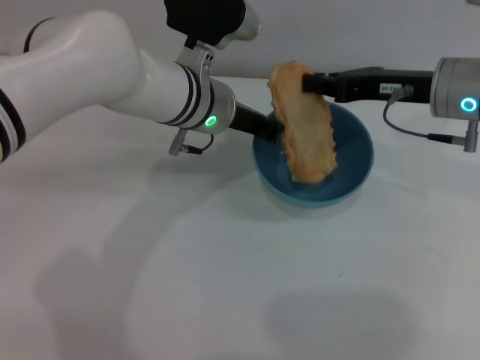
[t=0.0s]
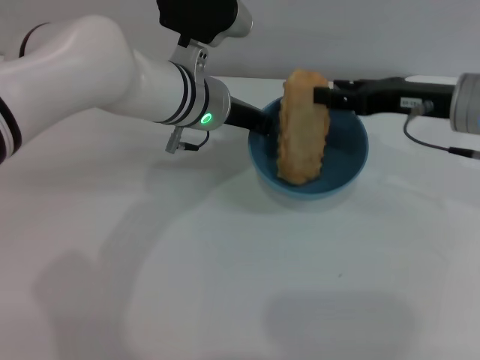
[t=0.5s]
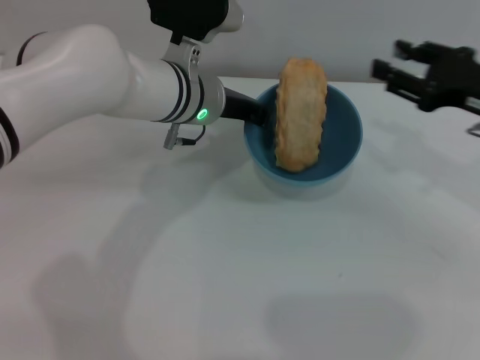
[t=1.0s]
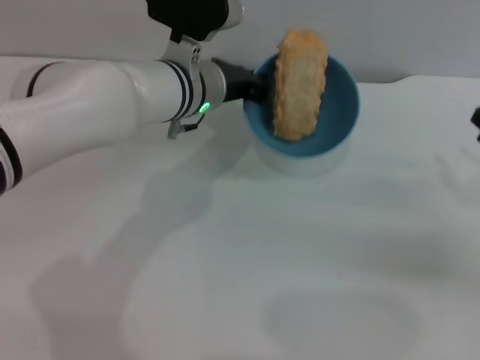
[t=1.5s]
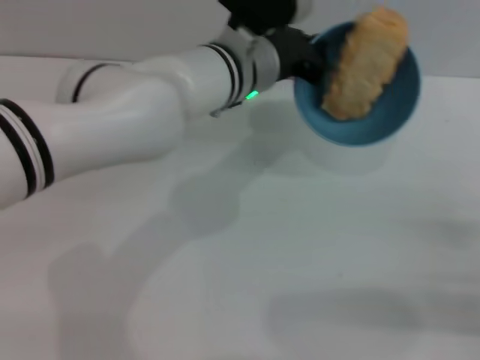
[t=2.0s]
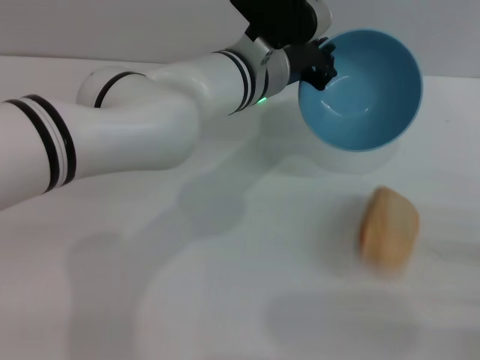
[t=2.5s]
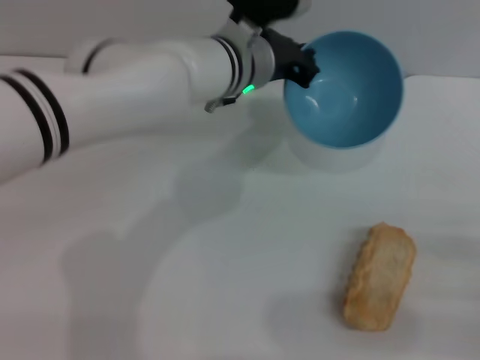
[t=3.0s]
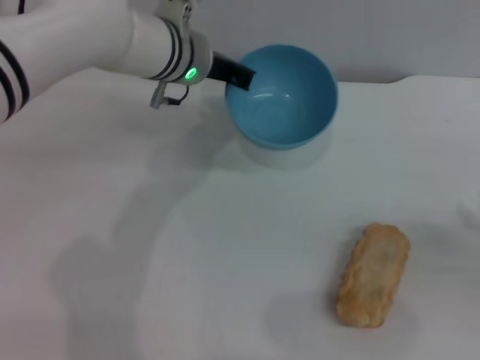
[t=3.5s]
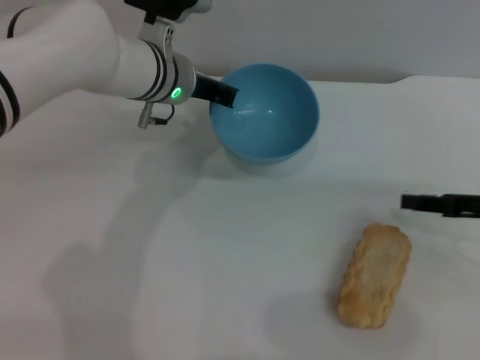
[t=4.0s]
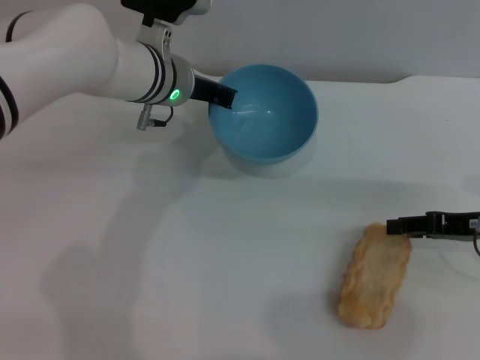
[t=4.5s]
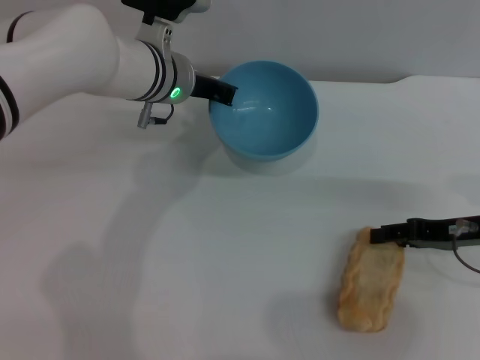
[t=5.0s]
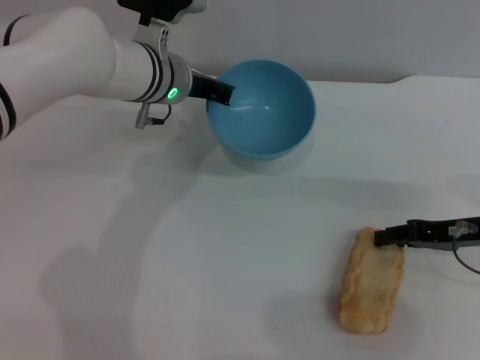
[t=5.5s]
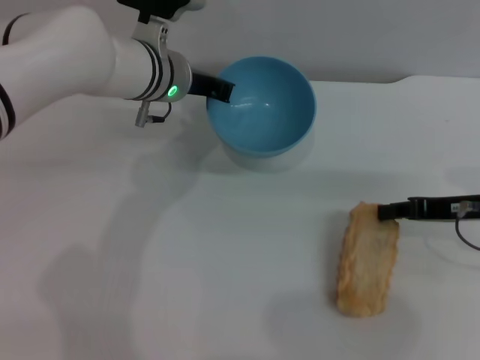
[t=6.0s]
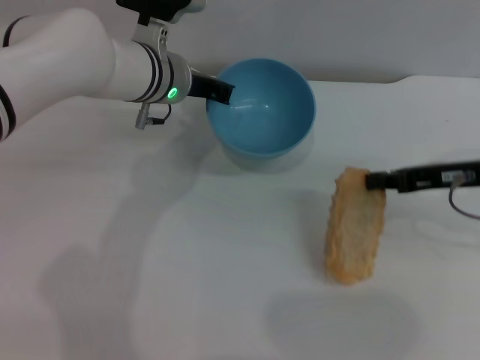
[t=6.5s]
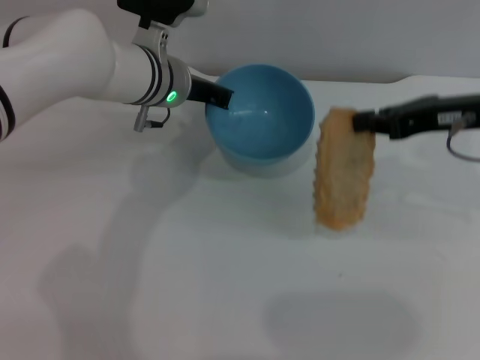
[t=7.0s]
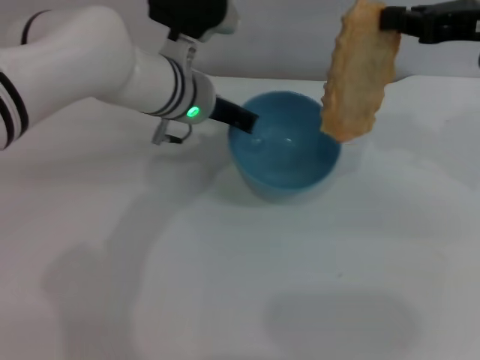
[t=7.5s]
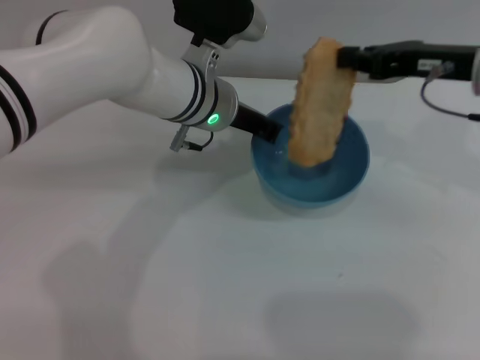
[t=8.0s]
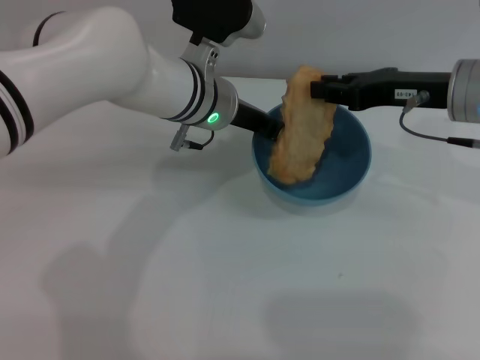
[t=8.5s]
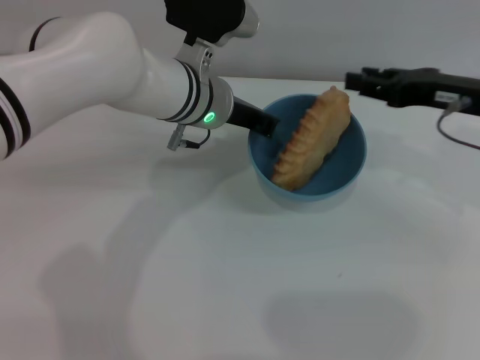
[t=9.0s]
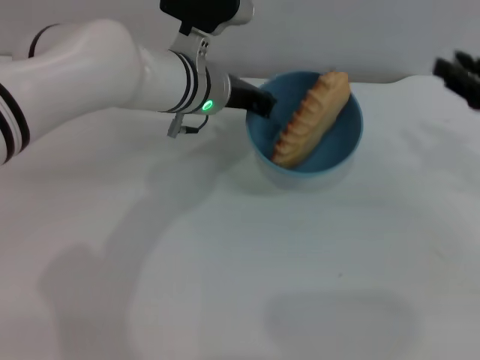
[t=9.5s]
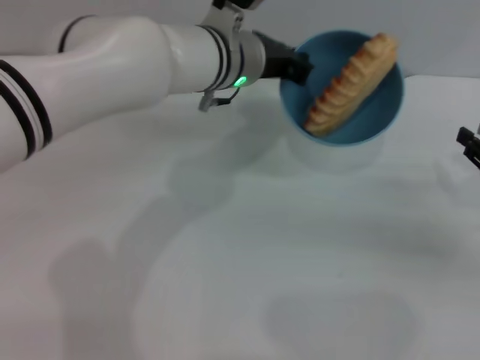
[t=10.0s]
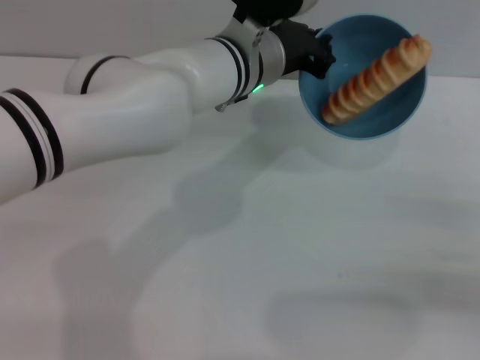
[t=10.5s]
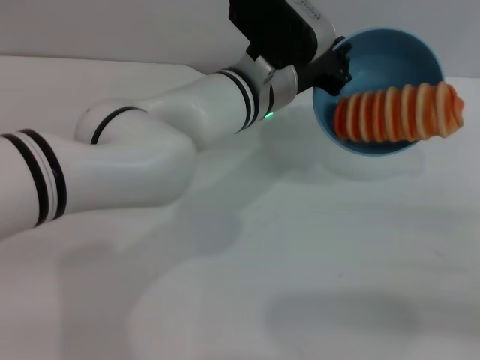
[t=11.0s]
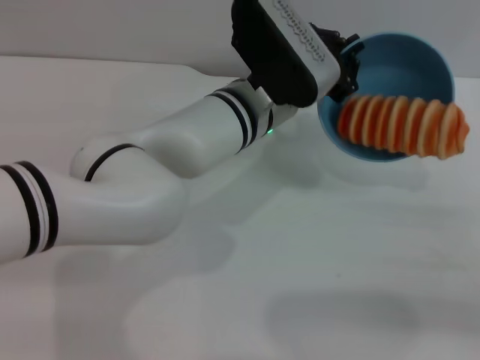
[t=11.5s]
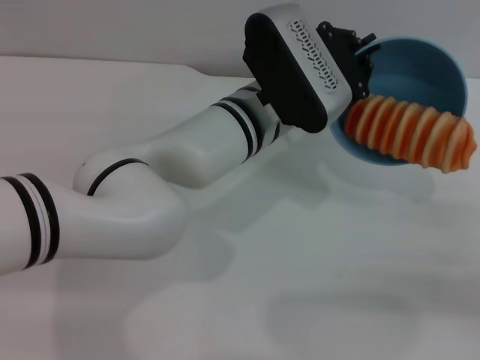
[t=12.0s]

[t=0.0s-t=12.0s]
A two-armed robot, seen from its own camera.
Task of the whole recording: put the bread into the blue bowl and pour it out repeatedly.
Step, t=1.0s to t=2.5s: Pour the bread out of the bowl.
Step, t=3.0s to t=6.5s: Pick up the bread with the right gripper.
Step, t=7.5s to t=9.0s: Place the bread into the bowl.
t=0.0s to t=2.0s: The right gripper goes about 25 cm backward, to the right and downward, and opens its fingers.
t=2.0s to t=4.0s: The right gripper moves forward and upward, approximately 10 cm. Meanwhile the left gripper goes about 10 cm to the left.
t=4.0s to t=6.0s: The right gripper closes.
t=6.0s to t=8.0s: The left gripper shifts by some 5 cm. The right gripper goes about 15 cm upward, forward and to the left.
t=8.0s to t=10.0s: The right gripper is displaced downward, to the right and backward by approximately 20 cm, and opens.
t=10.0s to t=12.0s: Both grippers travel together backward, roughly 5 cm.

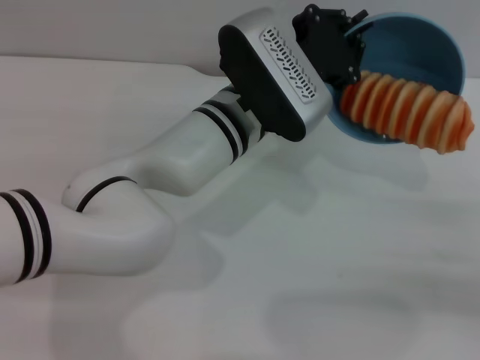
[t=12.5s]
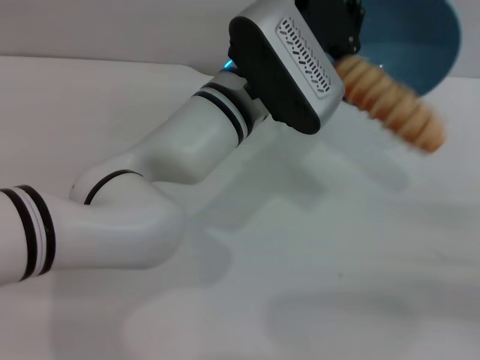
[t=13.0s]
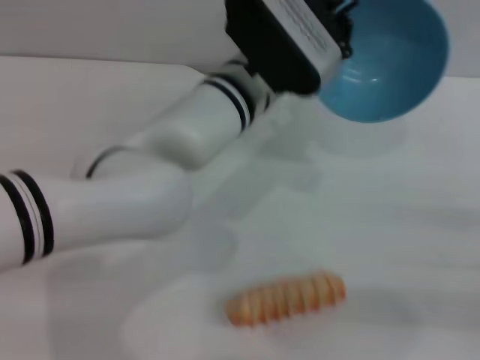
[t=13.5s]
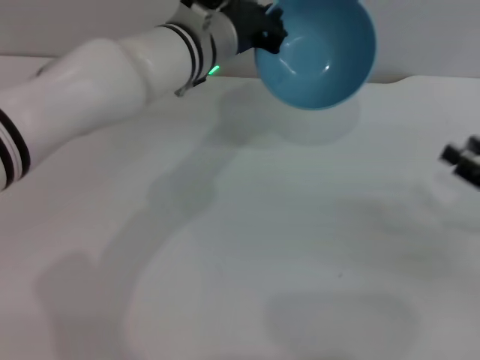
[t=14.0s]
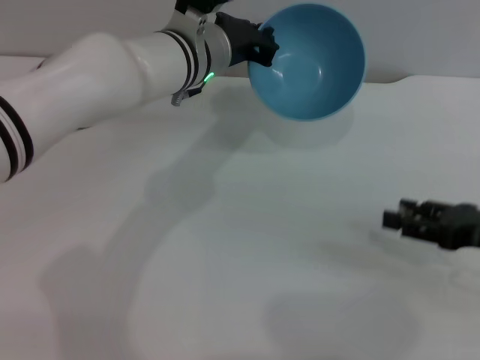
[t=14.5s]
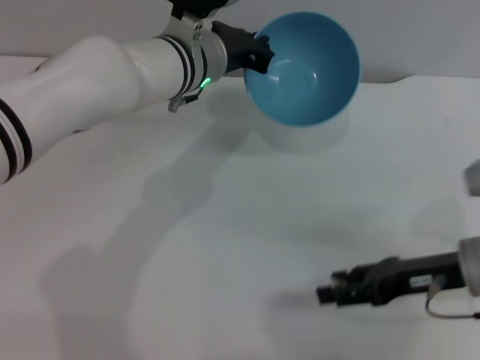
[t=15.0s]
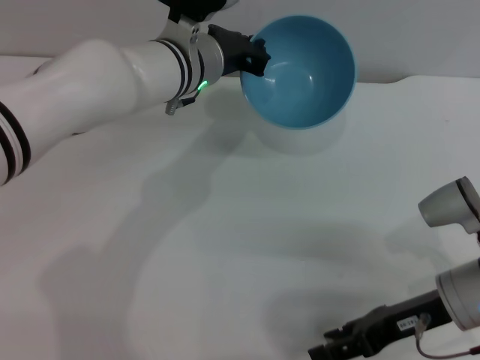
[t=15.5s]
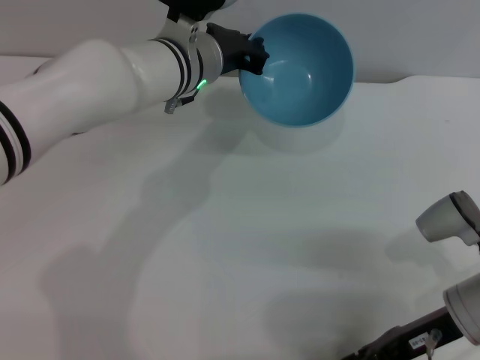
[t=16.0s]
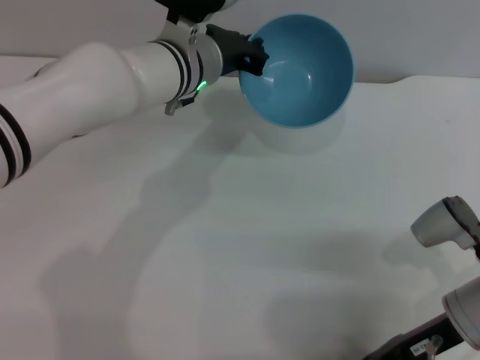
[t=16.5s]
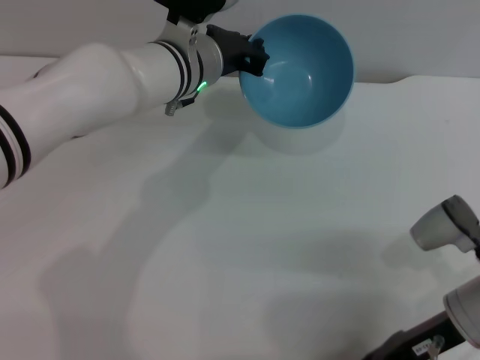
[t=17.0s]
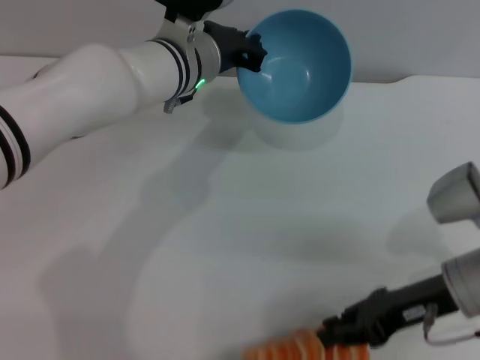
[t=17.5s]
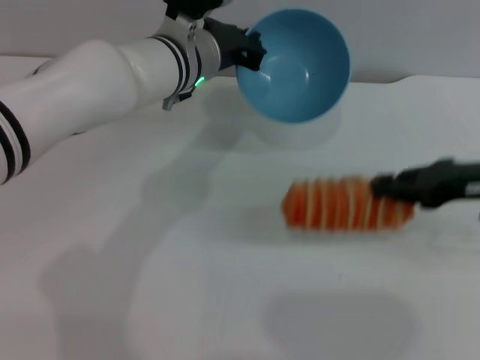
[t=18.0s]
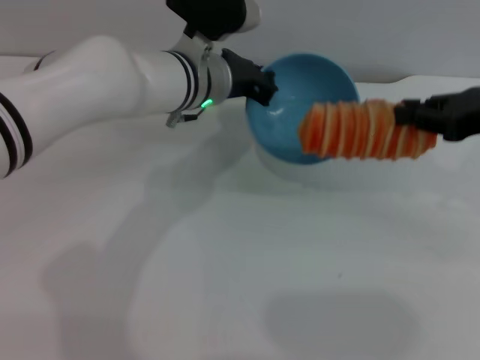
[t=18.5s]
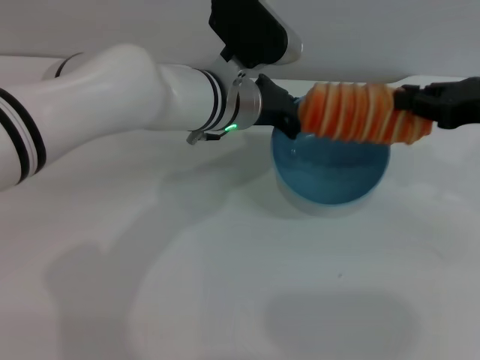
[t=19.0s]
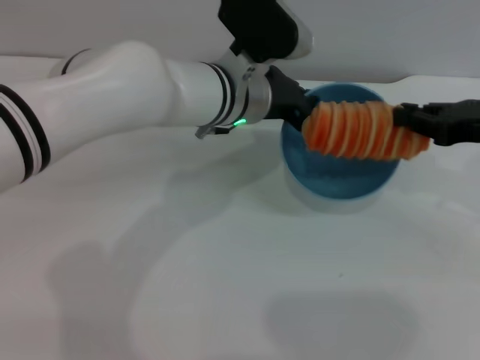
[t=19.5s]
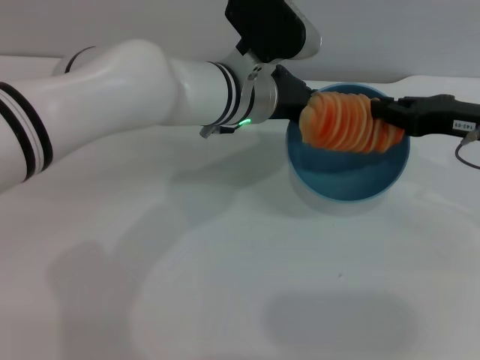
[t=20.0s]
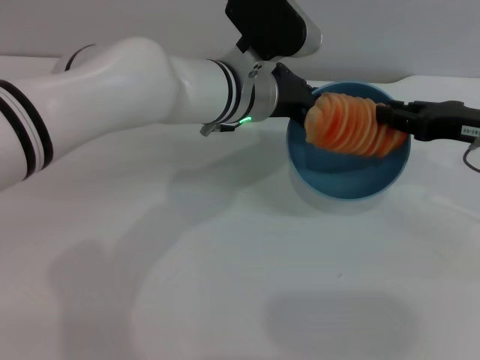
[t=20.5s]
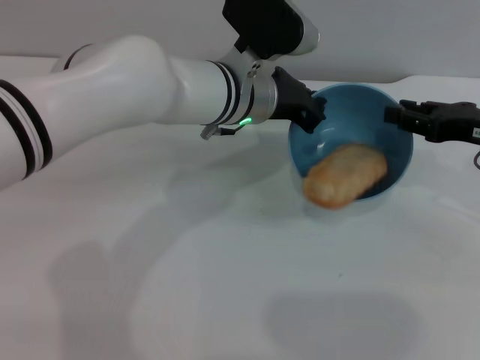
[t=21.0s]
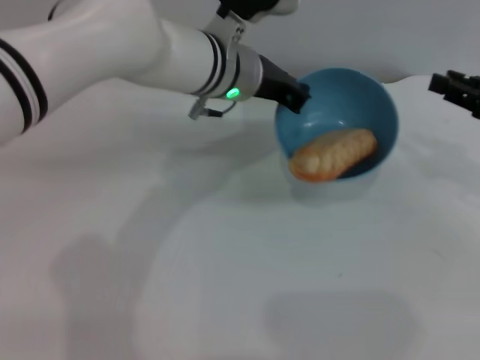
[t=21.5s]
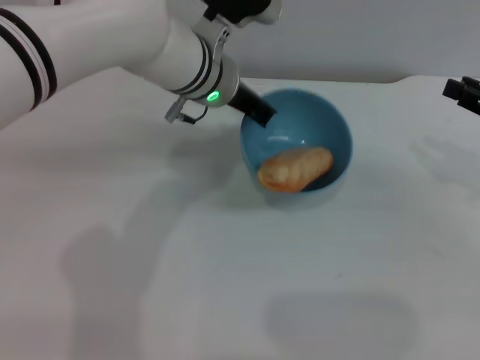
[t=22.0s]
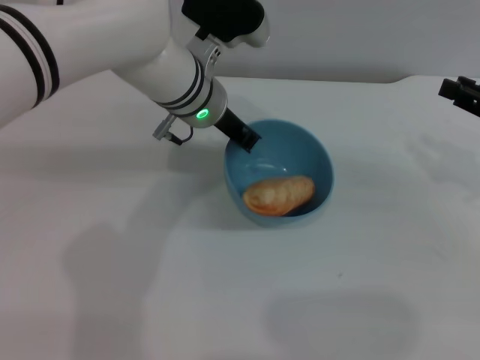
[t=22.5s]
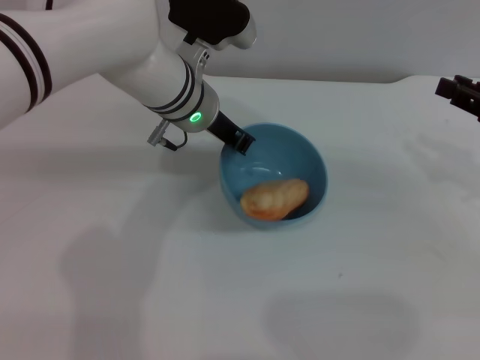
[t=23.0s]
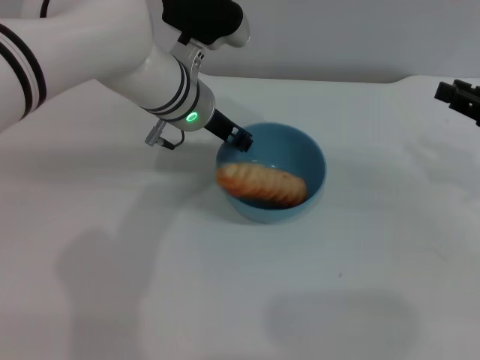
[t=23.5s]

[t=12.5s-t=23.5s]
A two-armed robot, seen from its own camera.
Task of the whole recording: put the bread into the blue bowl and pour it out repeatedly.
Step, t=13.5s to t=17.5s: Pick up the bread with the right gripper.
Step, t=18.0s to t=21.0s: Place the bread into the bowl.
t=12.5s to t=14.5s: The left gripper moves forward and to the left, approximately 10 cm. Meanwhile the right gripper heads to the left, covering roughly 5 cm.
t=14.5s to t=16.0s: The right gripper goes roughly 10 cm to the left.
t=16.0s to t=18.0s: The right gripper is displaced upward, forward and to the right by some 10 cm, and closes.
t=18.0s to t=20.0s: The left gripper heads to the right, covering about 5 cm.
t=20.0s to t=21.5s: The right gripper goes roughly 5 cm to the right, and opens.

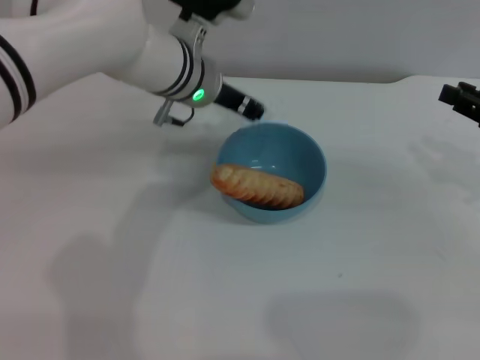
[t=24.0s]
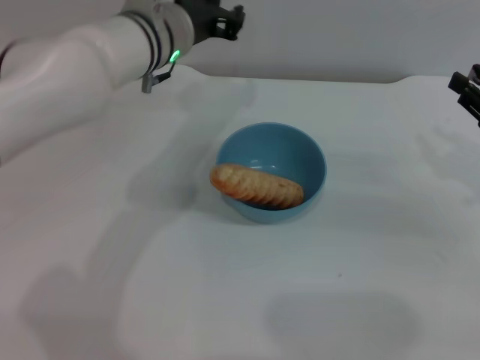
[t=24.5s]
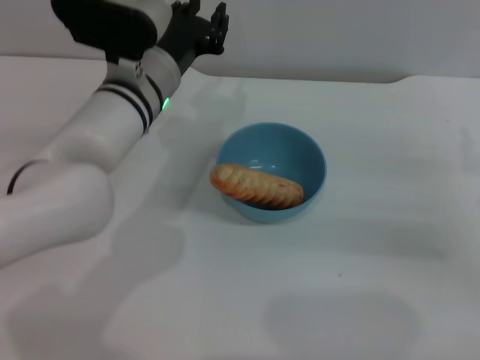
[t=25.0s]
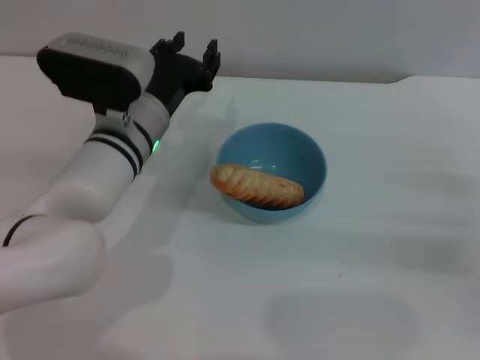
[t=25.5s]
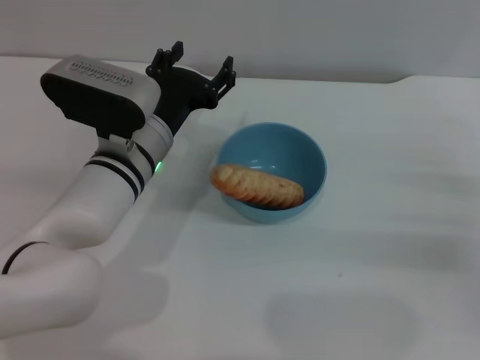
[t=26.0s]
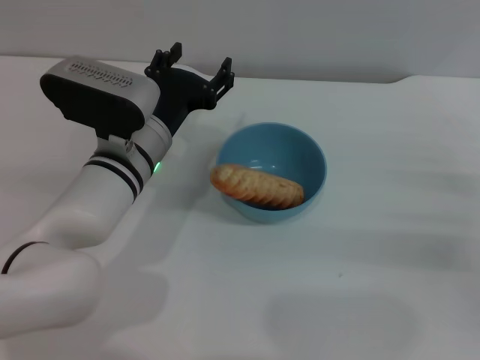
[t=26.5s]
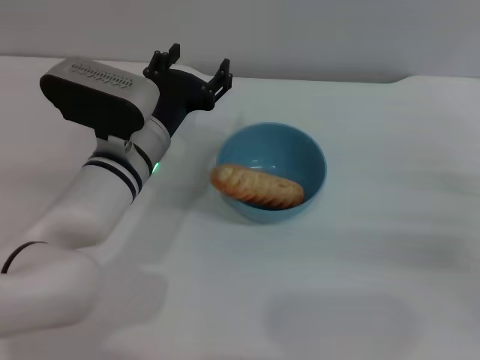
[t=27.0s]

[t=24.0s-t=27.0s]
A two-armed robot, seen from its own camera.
Task of the whole recording: put the bread into the blue bowl and pour it out repeatedly.
t=24.0s to t=25.5s: The left gripper travels backward and downward by some 10 cm; the right gripper shifts about 10 cm downward and backward.
t=25.5s to t=27.0s: The left gripper opens.
